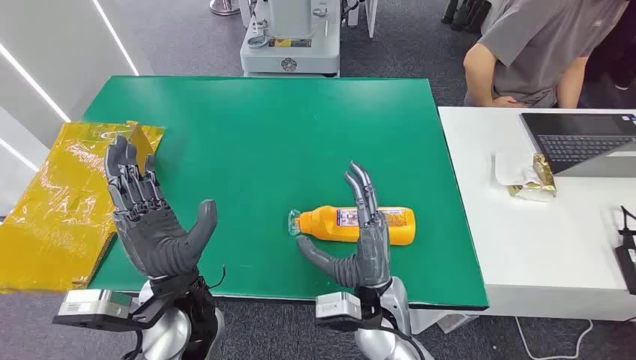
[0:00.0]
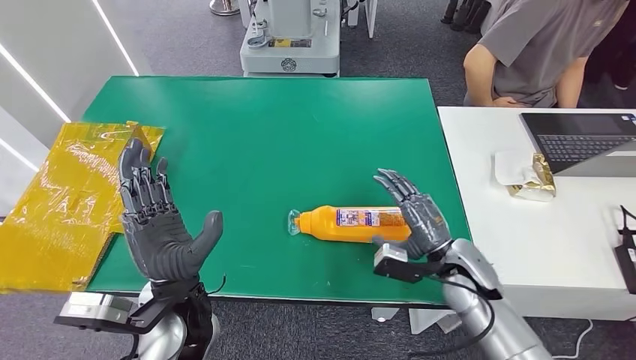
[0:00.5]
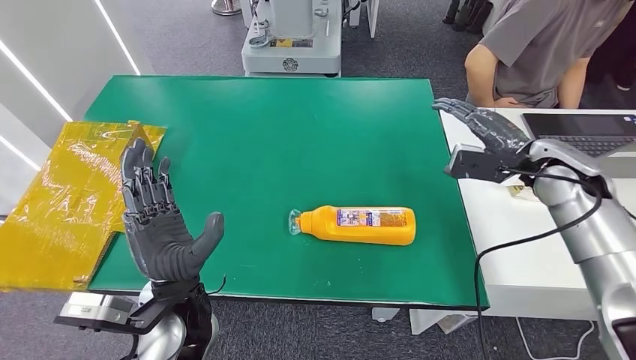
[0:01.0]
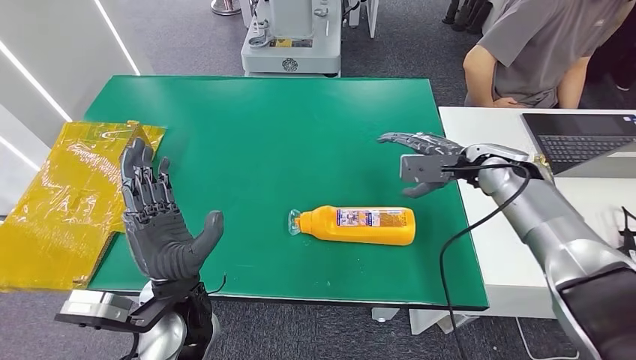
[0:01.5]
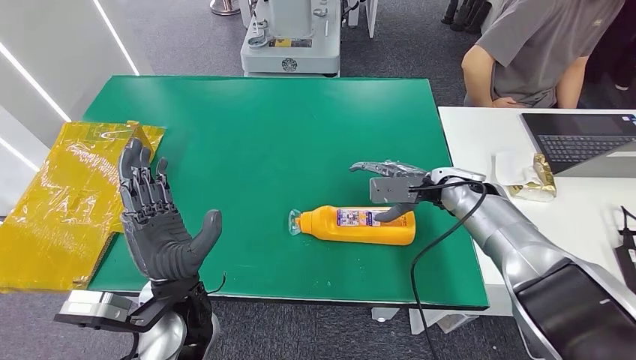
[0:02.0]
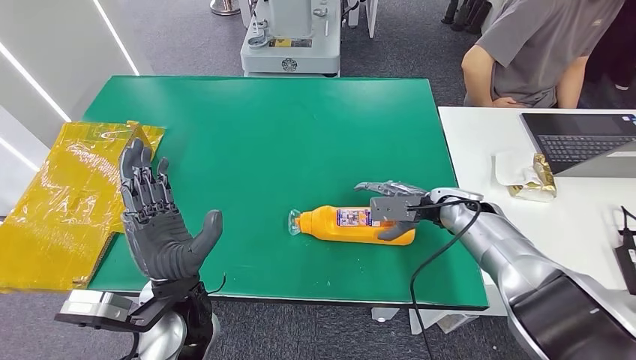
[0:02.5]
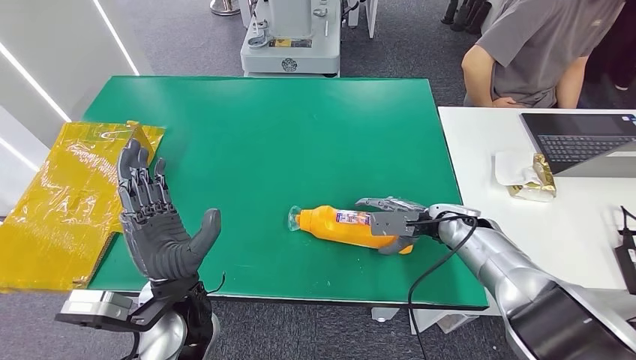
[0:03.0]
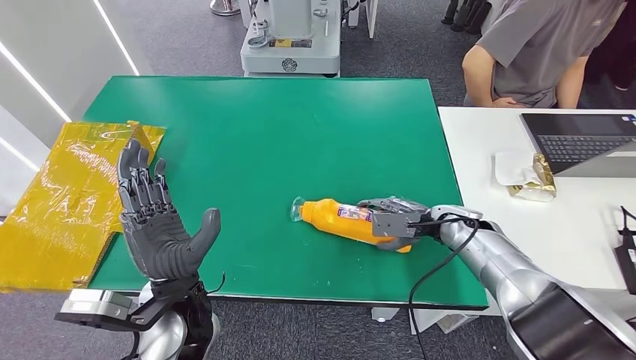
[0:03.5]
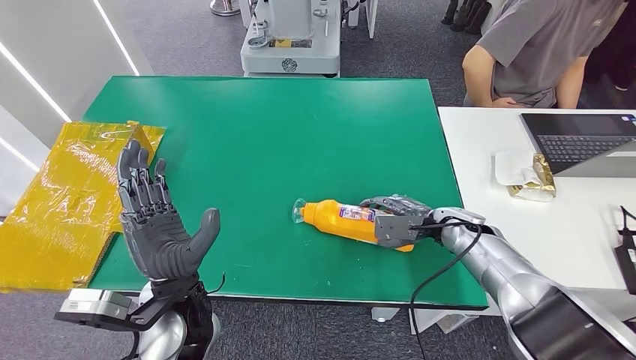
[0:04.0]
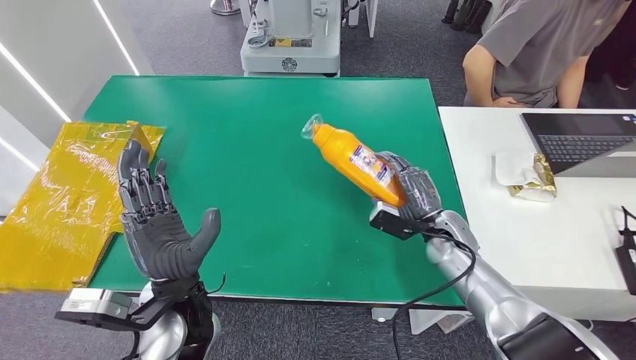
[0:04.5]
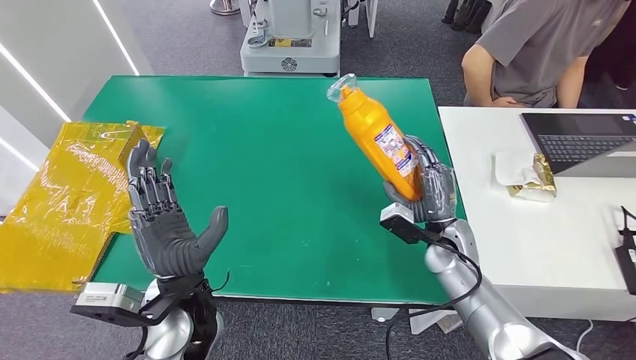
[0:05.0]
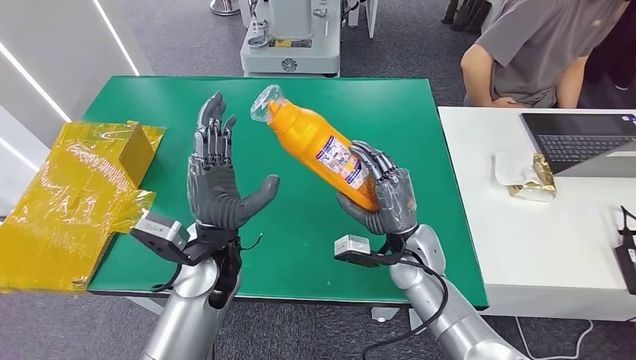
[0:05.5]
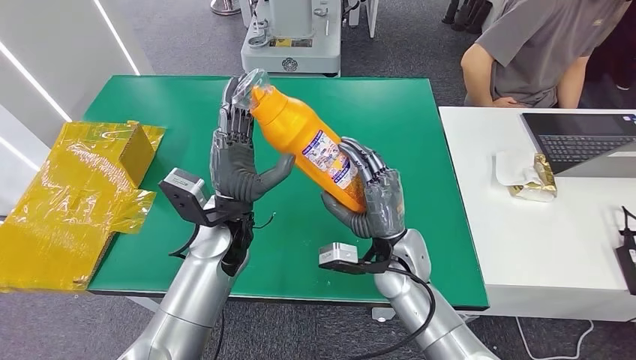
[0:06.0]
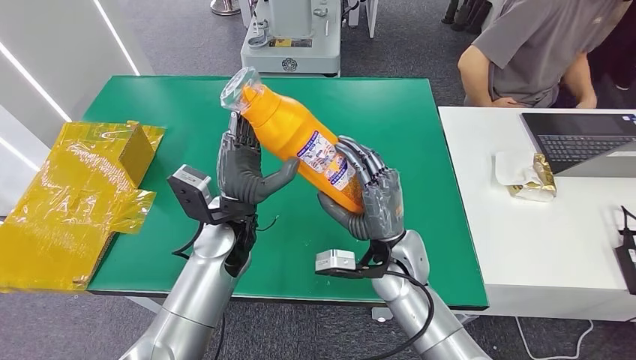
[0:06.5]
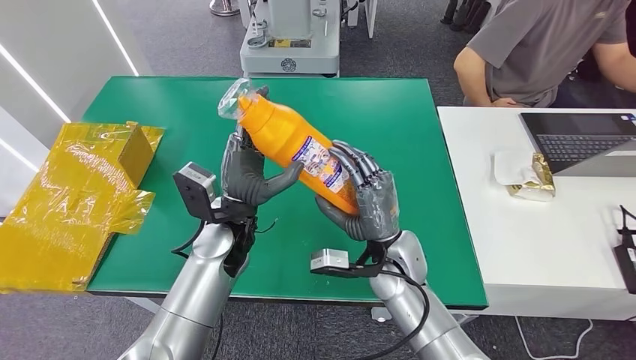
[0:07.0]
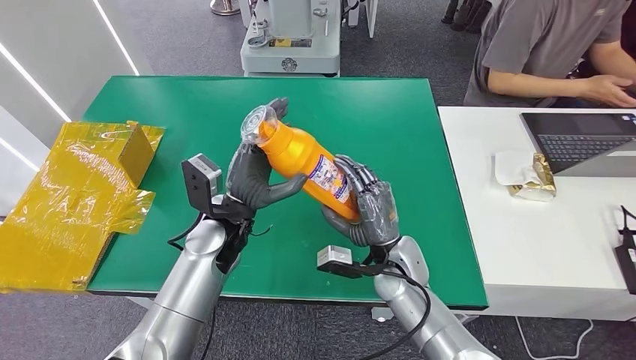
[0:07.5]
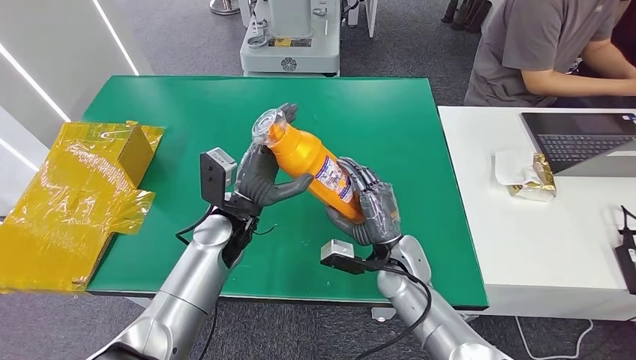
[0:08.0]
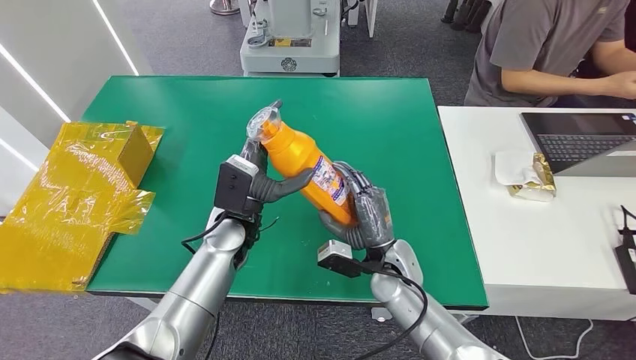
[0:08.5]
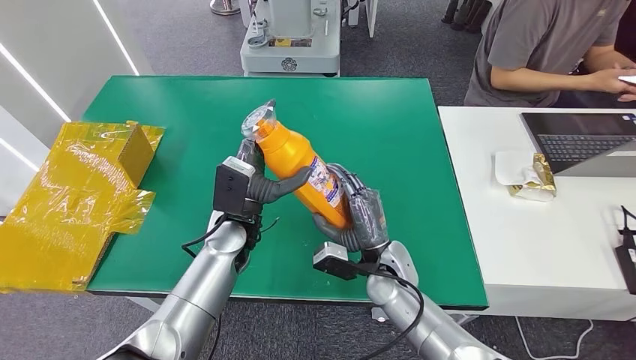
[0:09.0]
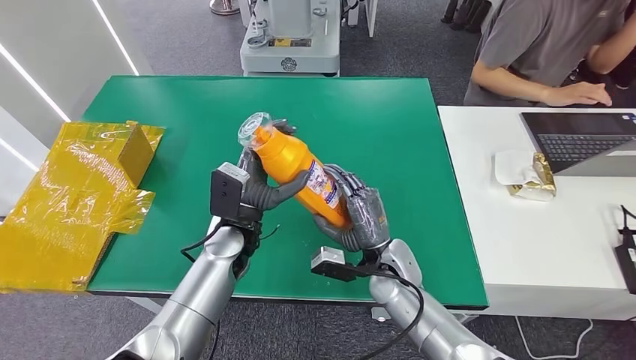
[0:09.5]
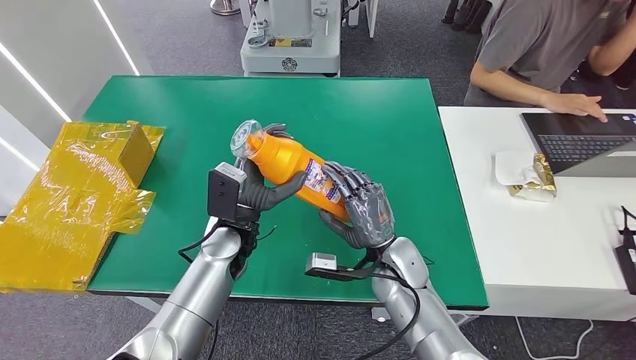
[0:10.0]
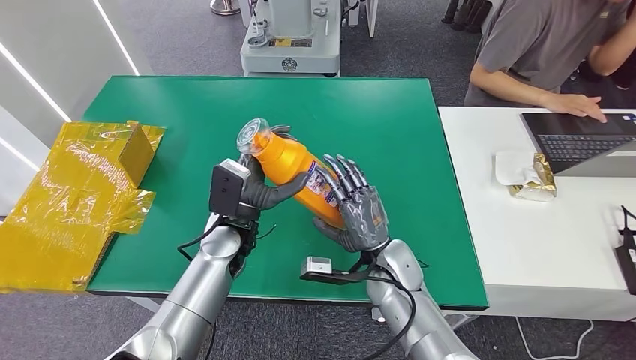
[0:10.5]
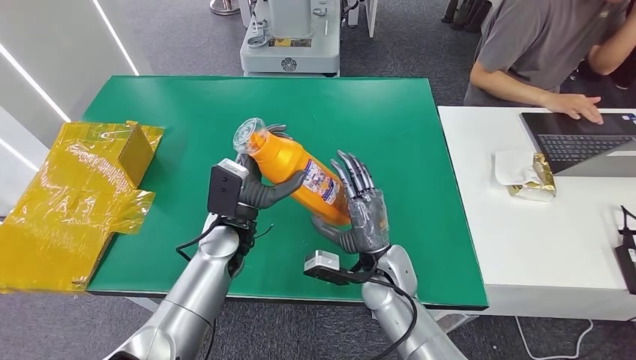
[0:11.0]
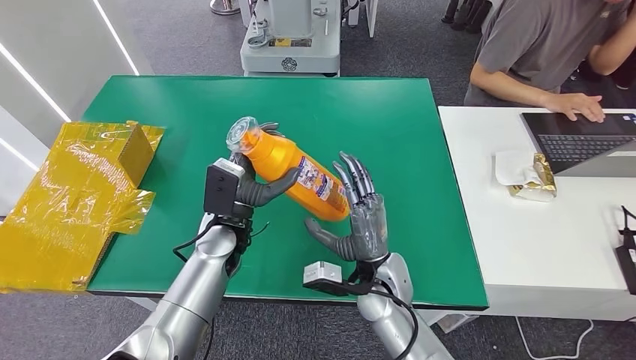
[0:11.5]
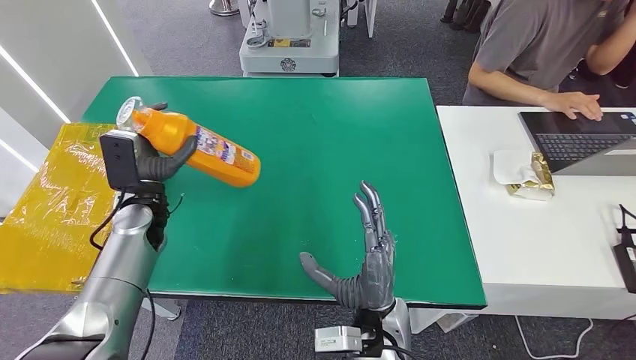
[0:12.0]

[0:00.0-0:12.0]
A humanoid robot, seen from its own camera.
Step, 0:00.0 to 0:05.0: Pick up the bottle from the table.
0:02.0 to 0:04.0: The right hand heads downward, covering roughly 10 cm.
0:06.0 to 0:08.0: The right hand shifts by about 5 cm.

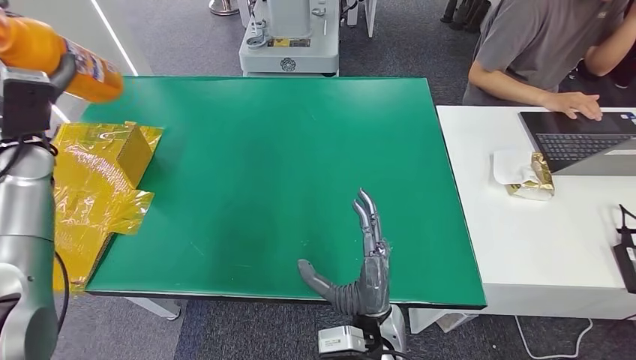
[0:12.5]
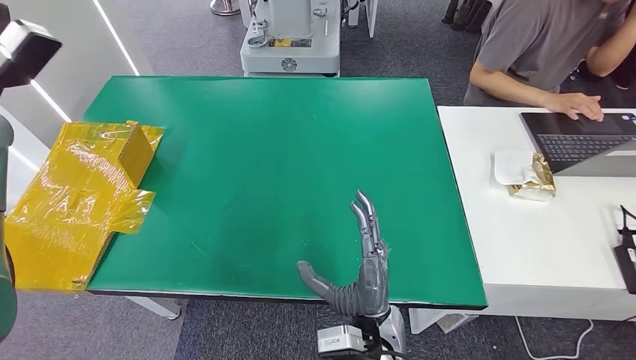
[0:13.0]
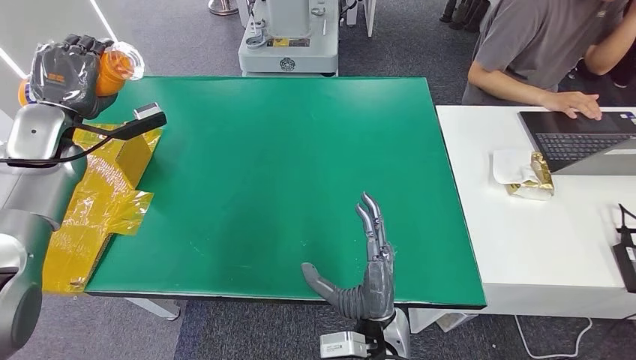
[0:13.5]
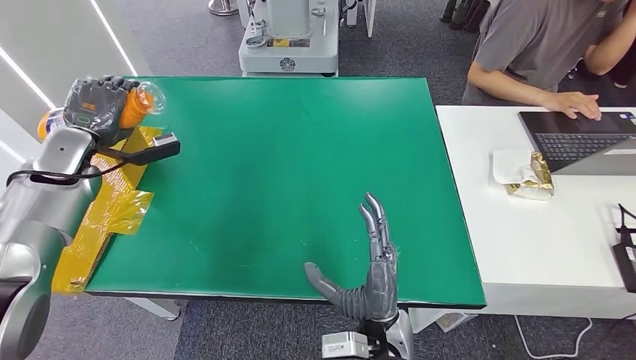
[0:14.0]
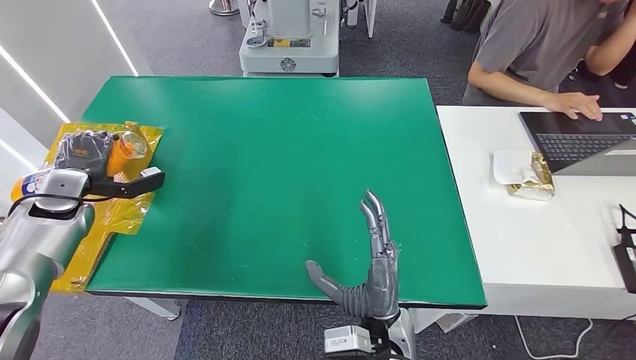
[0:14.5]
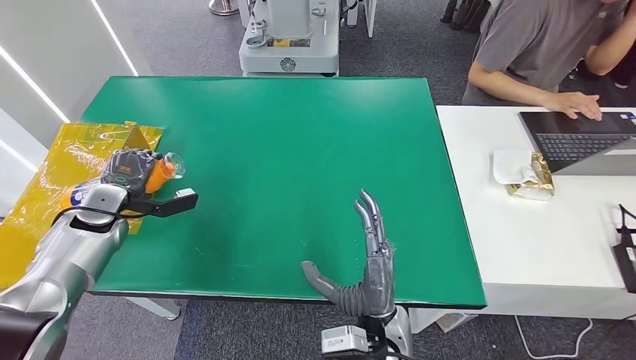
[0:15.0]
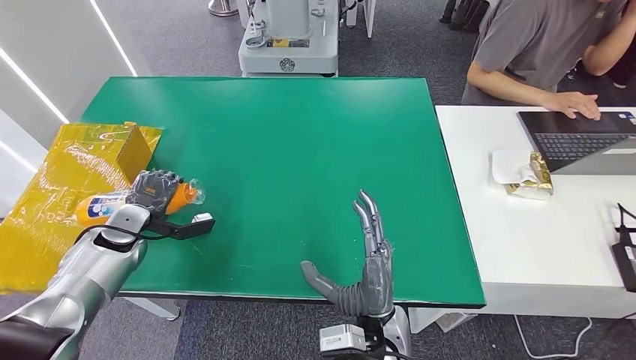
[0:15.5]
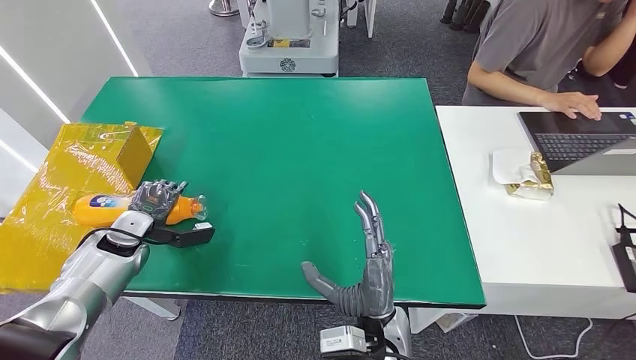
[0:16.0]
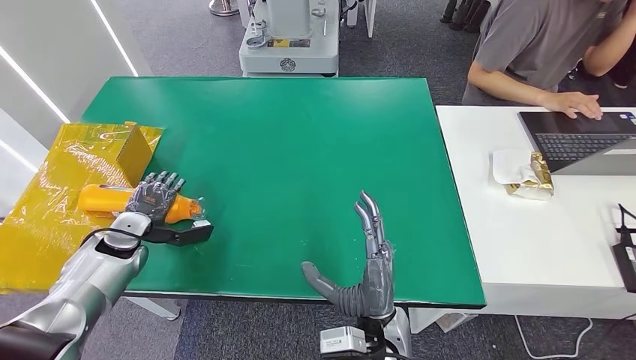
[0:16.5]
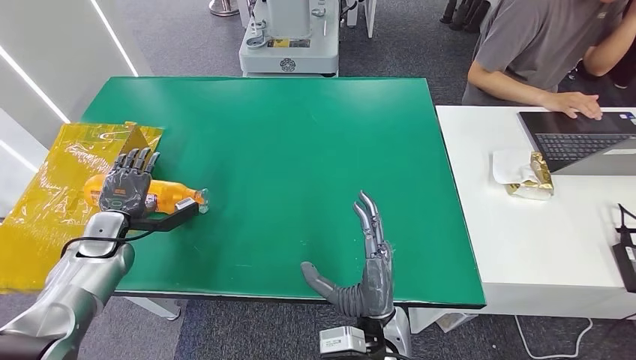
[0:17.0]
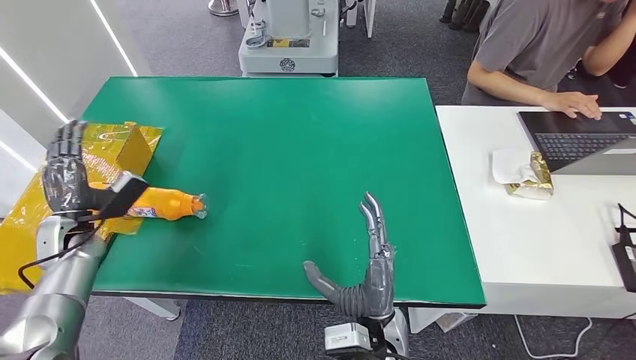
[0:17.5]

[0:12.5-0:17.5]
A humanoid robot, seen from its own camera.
Step, 0:12.5 to 0:17.5: Turn the bottle to the front side.
0:12.5 to 0:15.0: The left hand goes approximately 15 cm downward.
0:15.0 to 0:17.5: The left hand changes place by about 5 cm.
